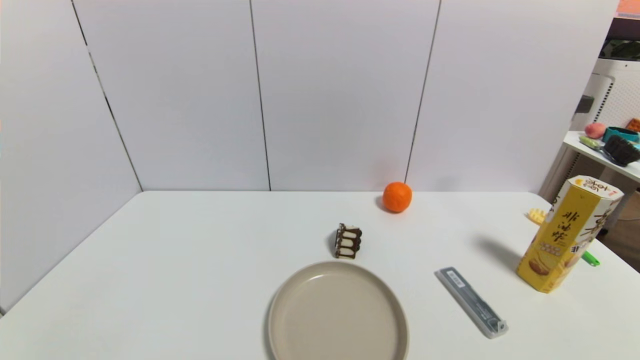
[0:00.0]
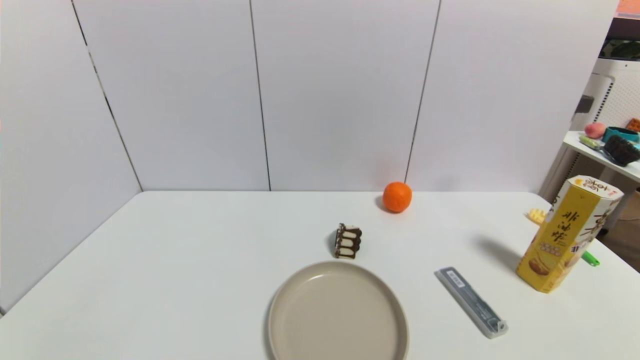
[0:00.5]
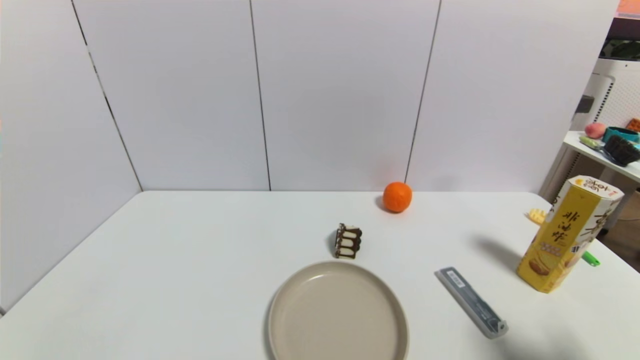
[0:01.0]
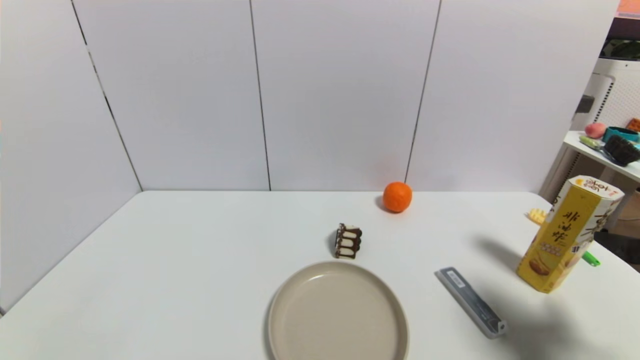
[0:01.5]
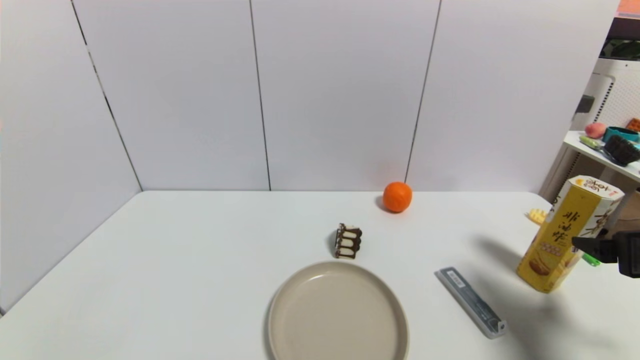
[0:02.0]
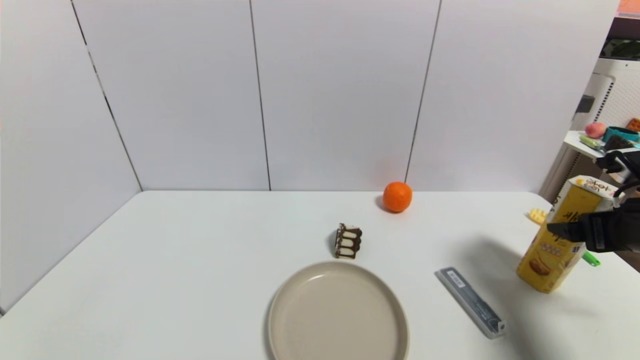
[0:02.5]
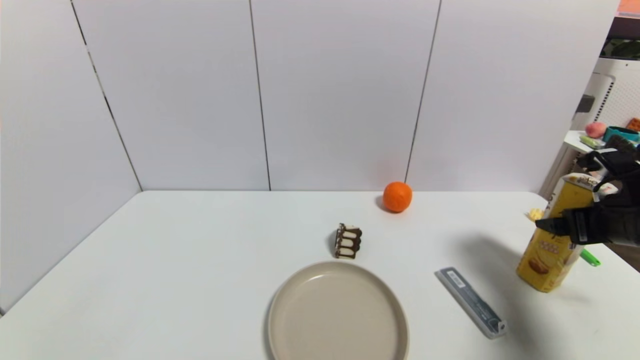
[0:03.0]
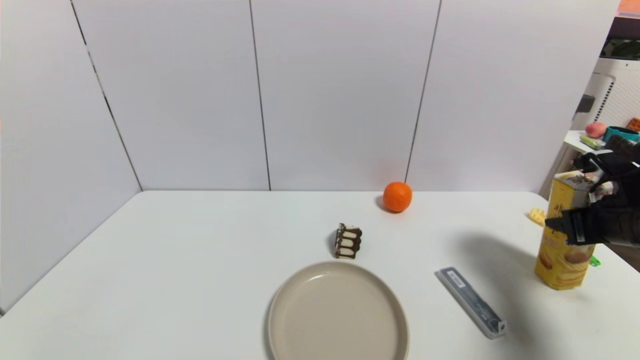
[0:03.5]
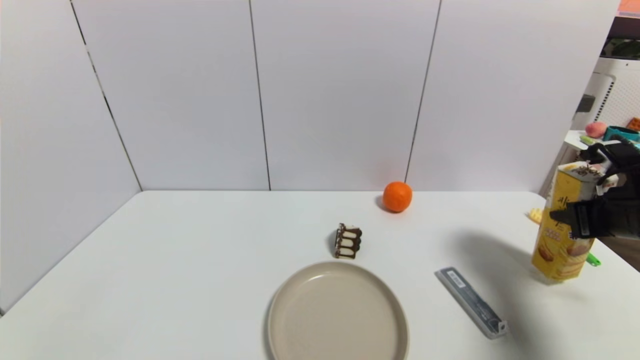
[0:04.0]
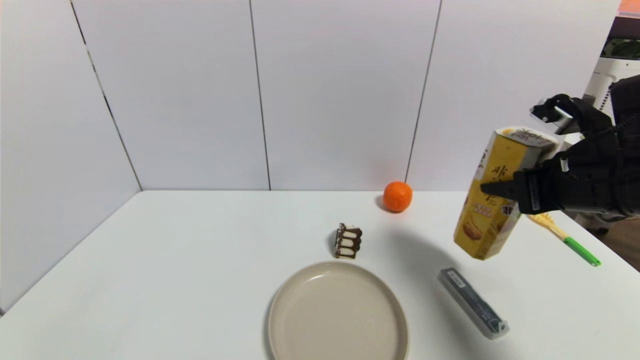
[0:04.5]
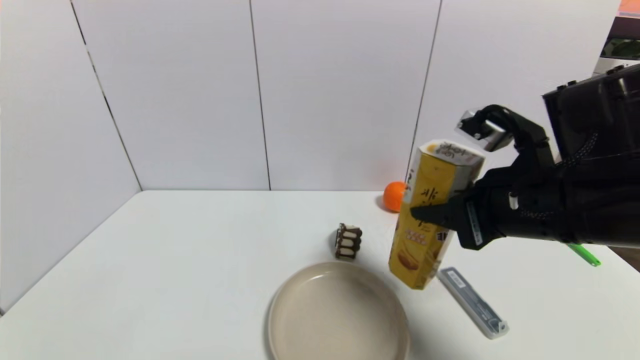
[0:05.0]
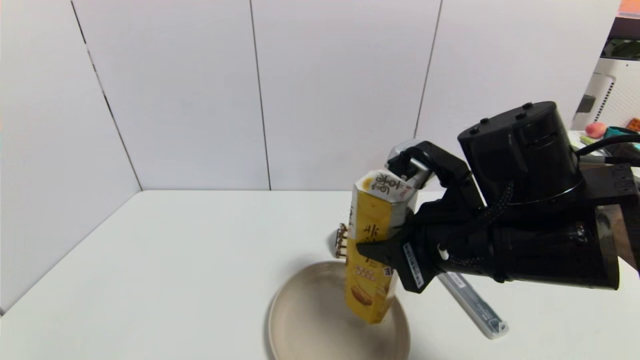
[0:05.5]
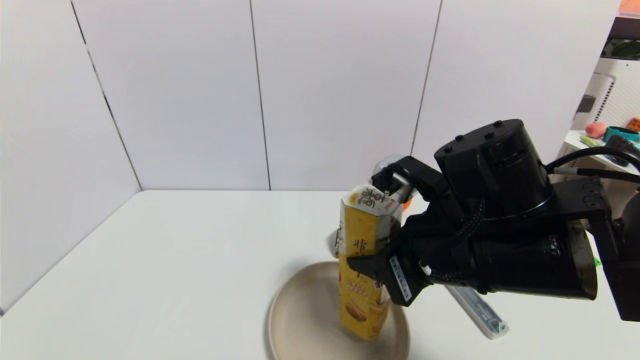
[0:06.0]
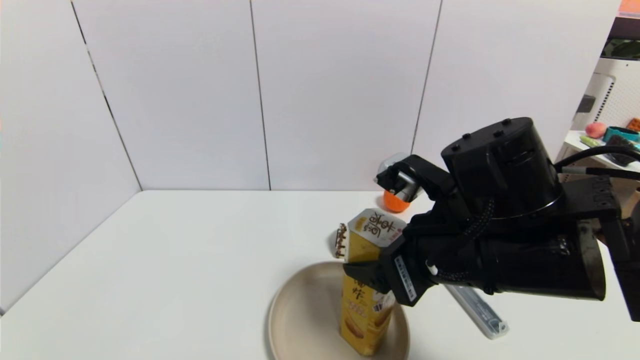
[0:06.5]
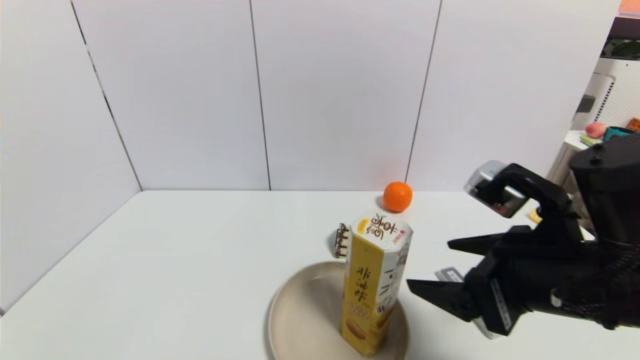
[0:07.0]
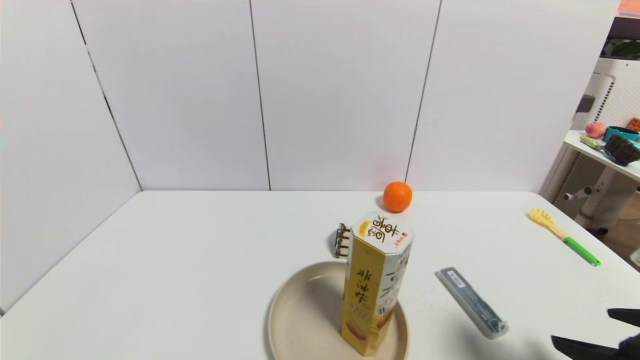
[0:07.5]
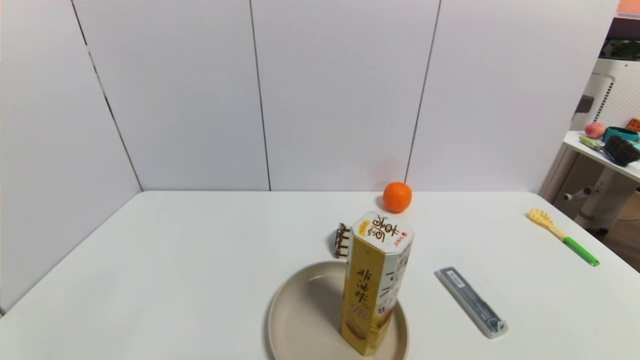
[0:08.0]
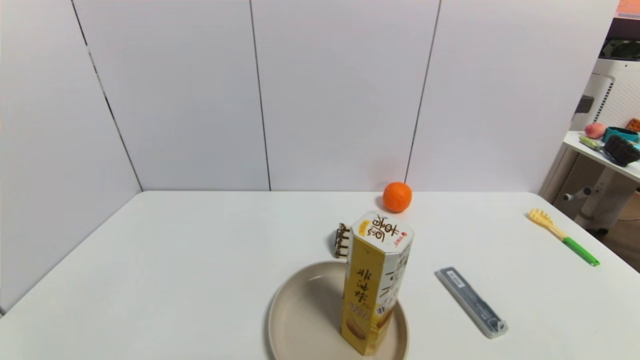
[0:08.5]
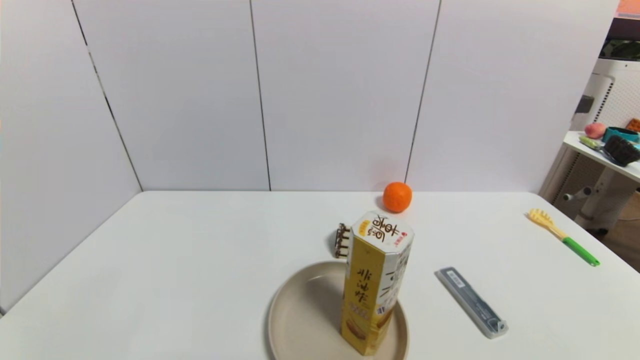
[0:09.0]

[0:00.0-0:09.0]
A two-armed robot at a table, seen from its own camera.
Task of the whole recording: use a gripper to pick the target object and place on the brown plate.
Step, 0:00.0 to 0:03.5: Grasp the potato chips with the right gripper.
Step, 0:04.0 to 0:07.0: Place the potato chips on the brown plate with the right gripper.
0:00.0 to 0:02.0: The right gripper goes some 25 cm forward and upward.
0:02.0 to 0:04.5: The right gripper moves to the left, forward and upward, some 10 cm, and closes.
0:04.5 to 0:07.0: The right gripper moves to the left and backward, approximately 10 cm, and opens up.
0:07.0 to 0:09.0: The right gripper shifts roughly 25 cm backward, downward and to the right.
